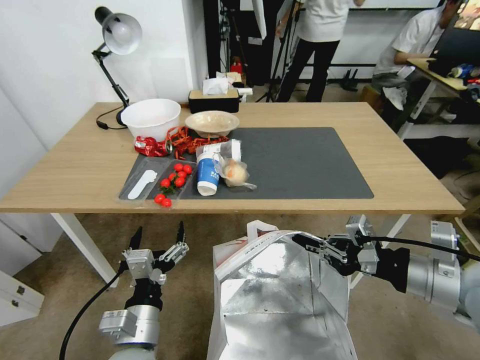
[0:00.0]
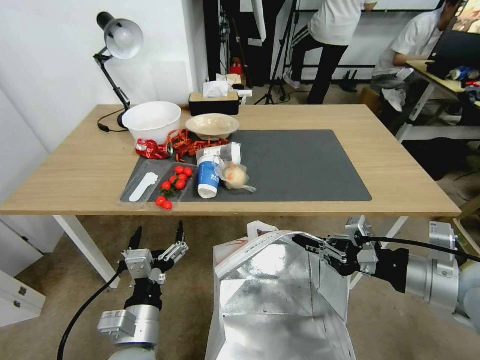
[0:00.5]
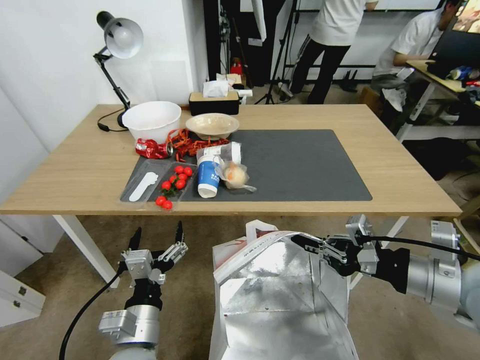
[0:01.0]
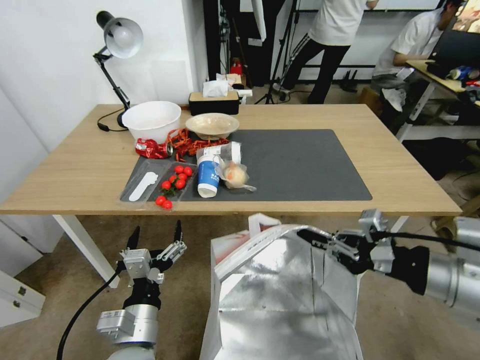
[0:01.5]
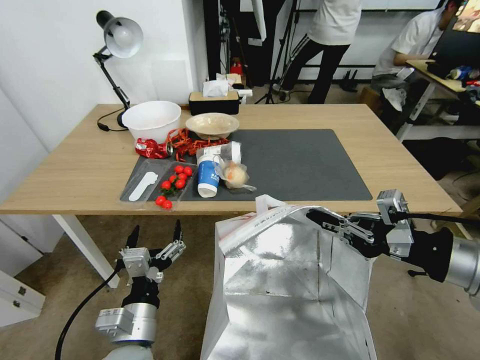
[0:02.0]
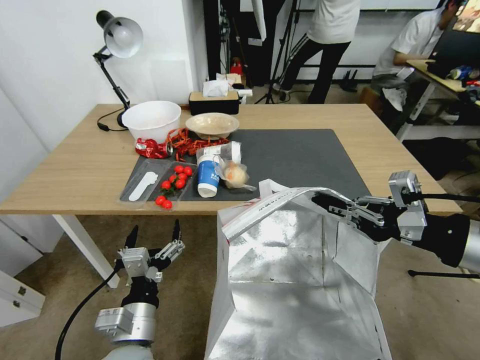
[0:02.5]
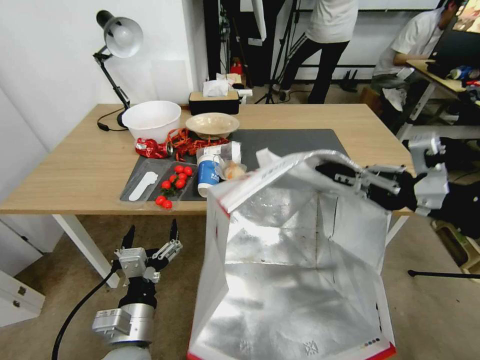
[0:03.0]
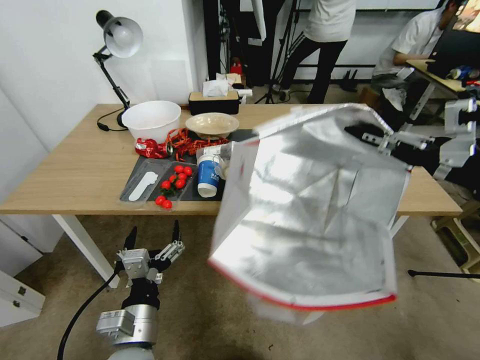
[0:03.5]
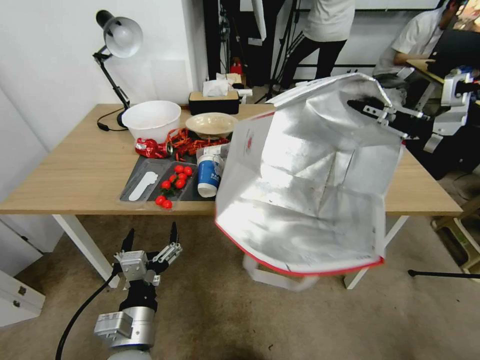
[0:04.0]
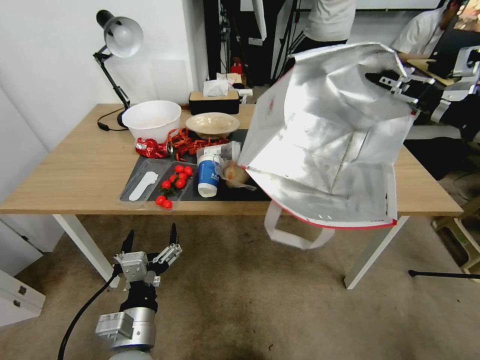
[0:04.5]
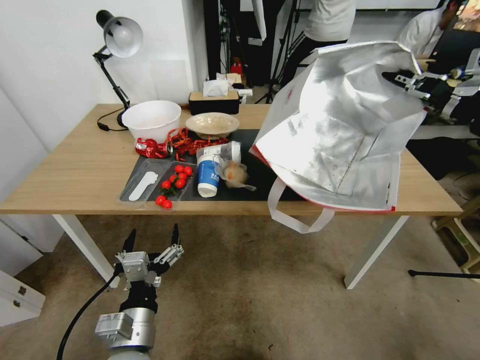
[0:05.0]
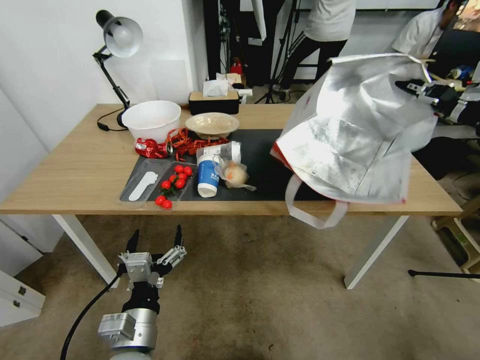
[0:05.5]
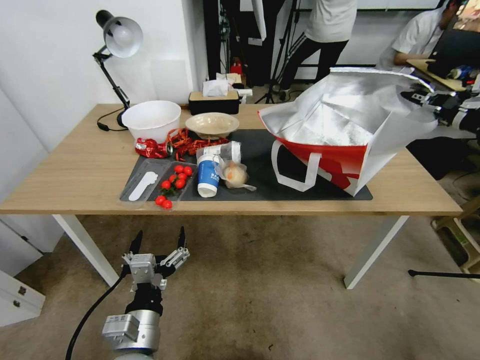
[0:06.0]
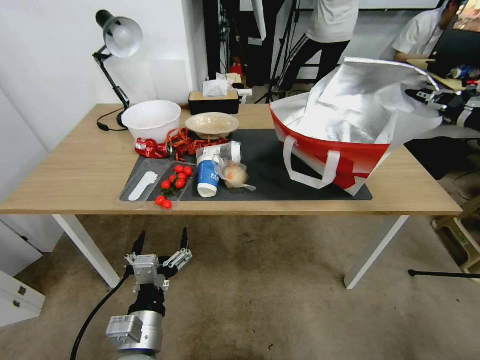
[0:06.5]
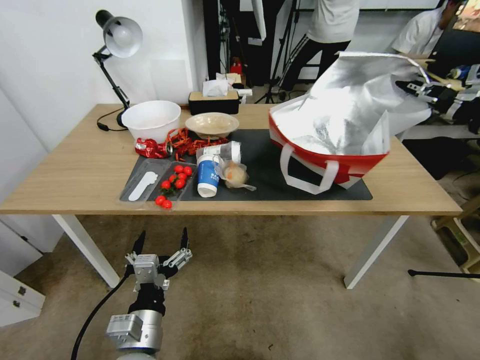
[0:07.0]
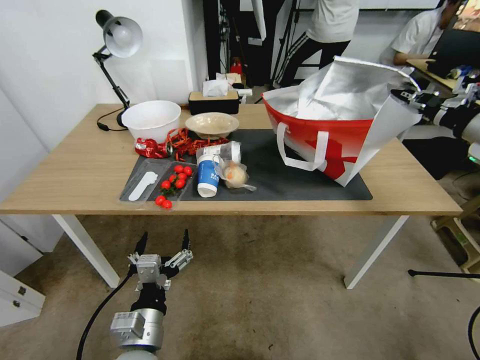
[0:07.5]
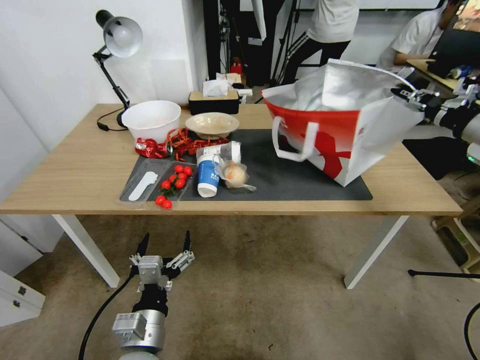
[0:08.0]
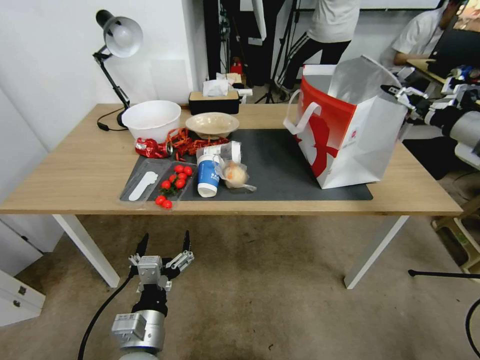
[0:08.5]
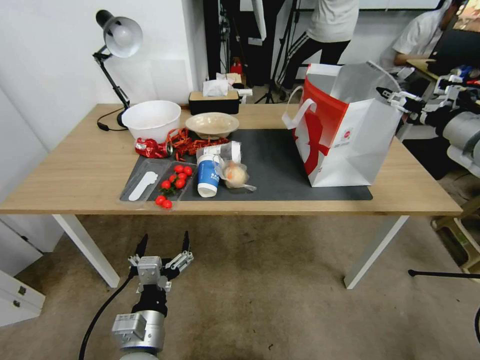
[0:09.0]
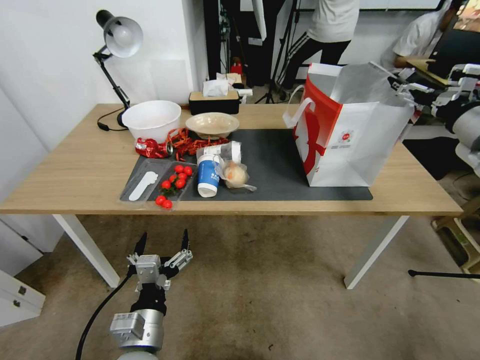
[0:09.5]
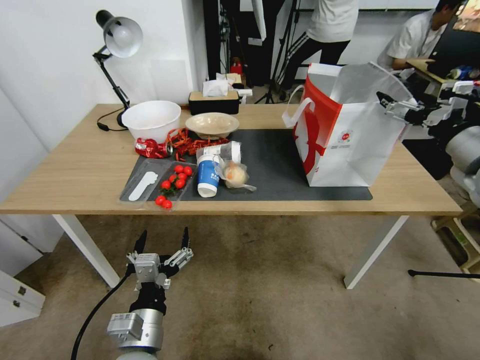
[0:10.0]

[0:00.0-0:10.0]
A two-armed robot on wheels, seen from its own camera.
Task of the whole recording: Pick up the food delivery bag from the floor and place it on the table.
0:00.0 to 0:02.0: The right gripper moves upward, some 5 cm.
0:02.0 to 0:04.0: The right gripper is displaced upward and forward by roughly 10 cm.
0:04.0 to 0:06.0: The right gripper is displaced to the right and forward by roughly 15 cm.
0:06.0 to 0:08.0: The right gripper travels forward by about 5 cm.
0:08.0 to 0:10.0: The right gripper shifts roughly 10 cm to the left and backward, and opens up.

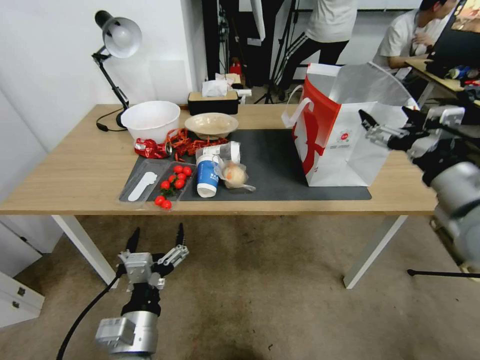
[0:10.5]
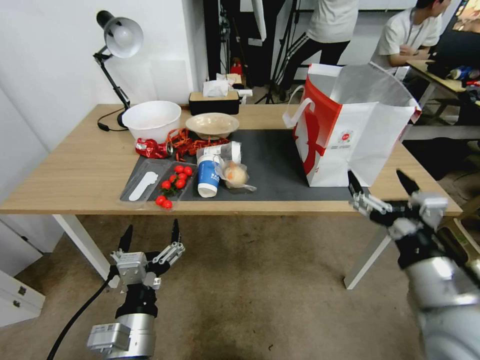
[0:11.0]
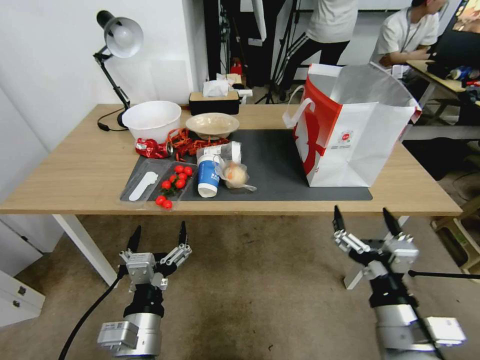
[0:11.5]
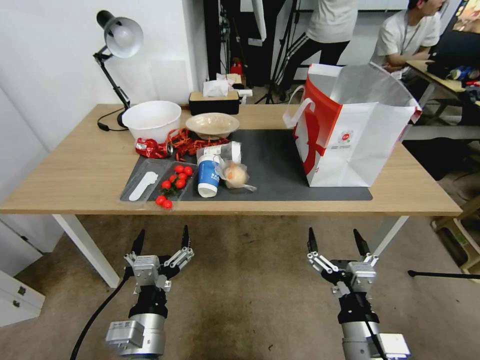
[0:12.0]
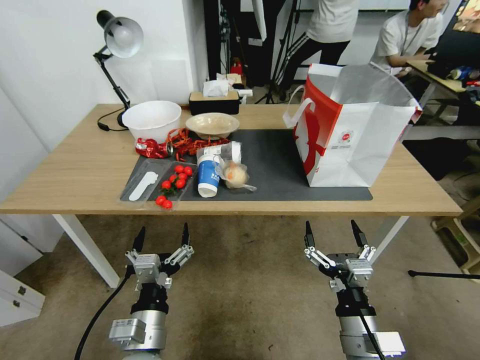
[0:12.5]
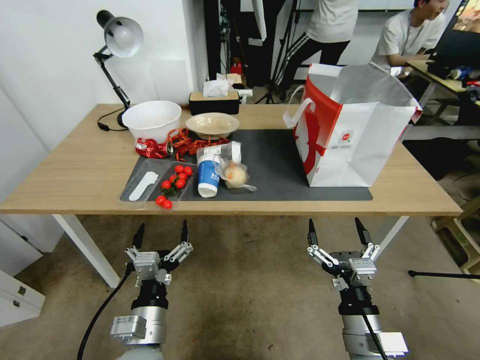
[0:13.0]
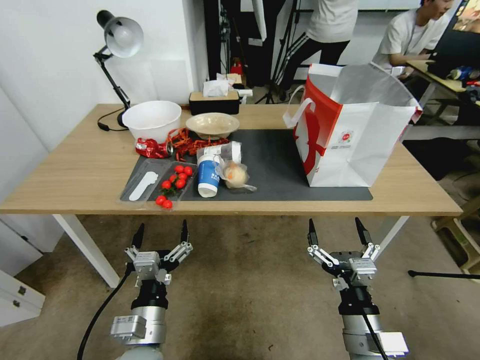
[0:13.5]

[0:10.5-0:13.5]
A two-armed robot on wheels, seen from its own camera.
Task of the whole recording: Pick up the food delivery bag from the floor and place it on the table.
0:10.5 to 0:12.0: The right gripper is displaced downward, backward and to the left by approximately 30 cm.
0:12.0 to 0:13.5: The grippers make only small movements.

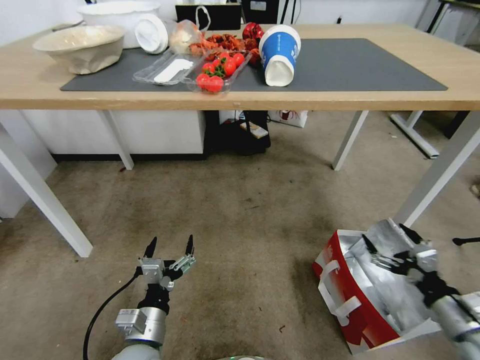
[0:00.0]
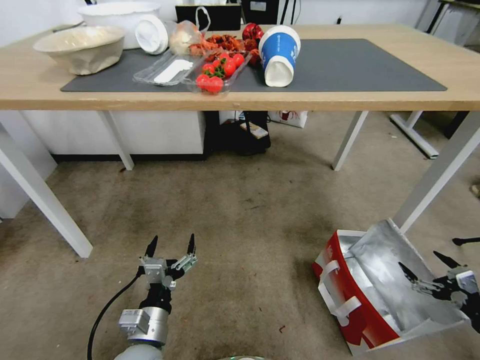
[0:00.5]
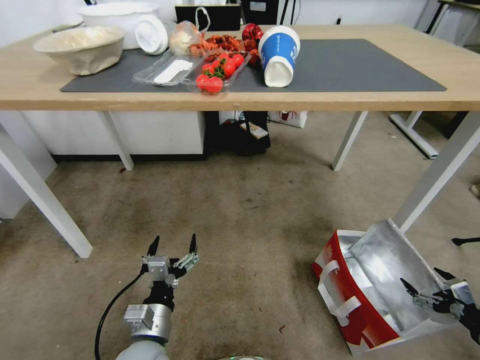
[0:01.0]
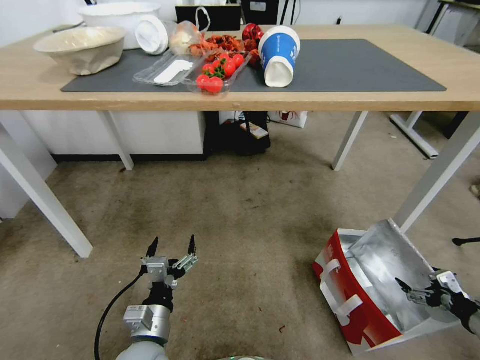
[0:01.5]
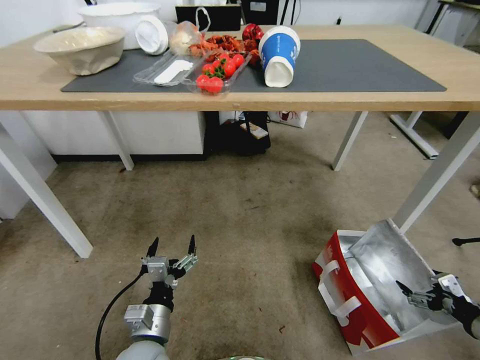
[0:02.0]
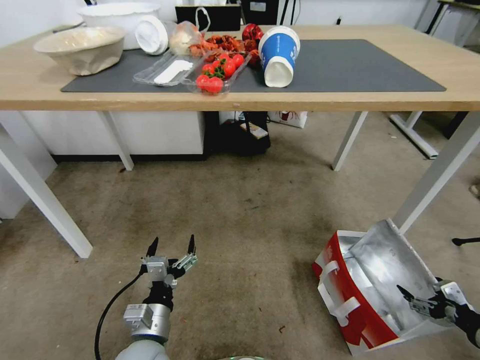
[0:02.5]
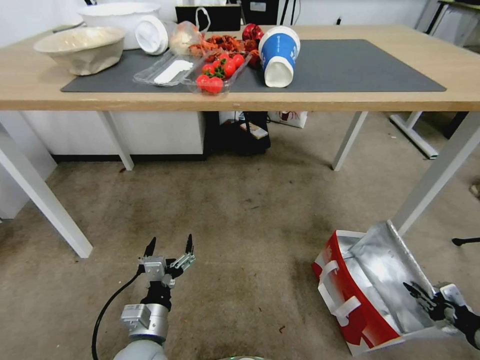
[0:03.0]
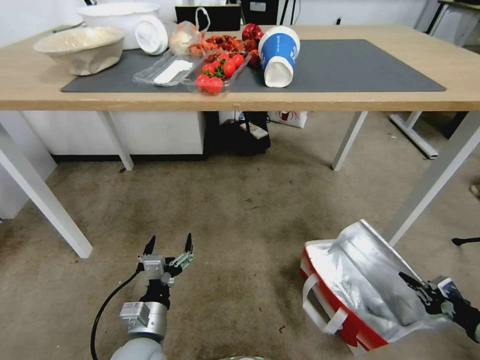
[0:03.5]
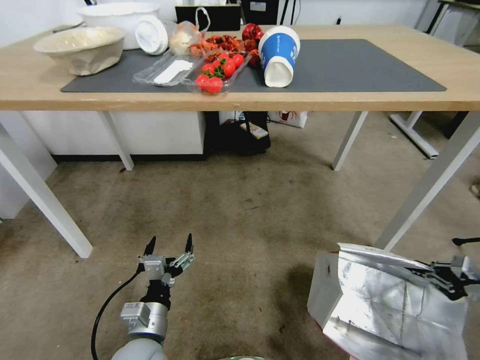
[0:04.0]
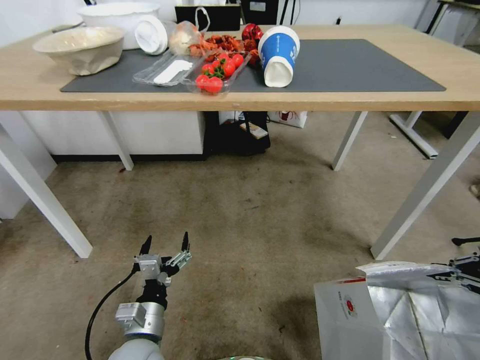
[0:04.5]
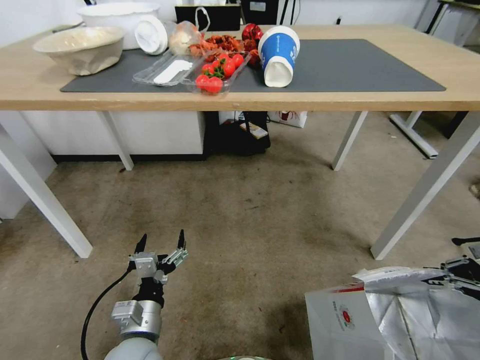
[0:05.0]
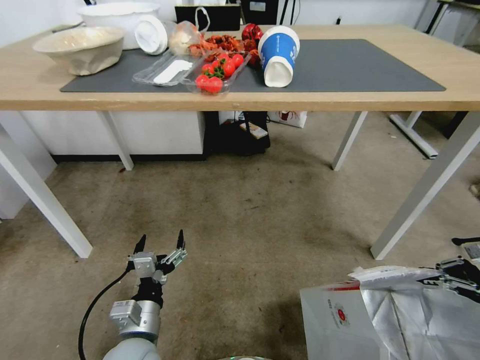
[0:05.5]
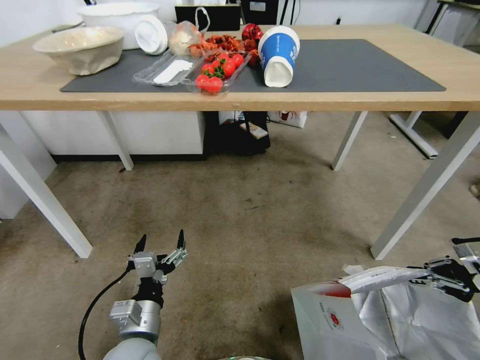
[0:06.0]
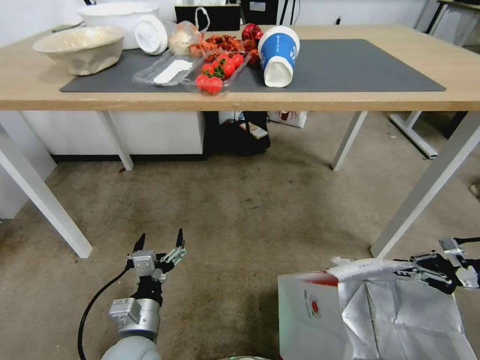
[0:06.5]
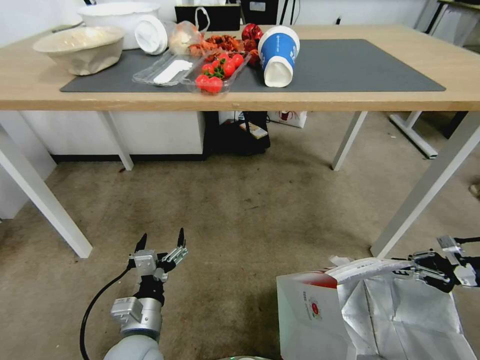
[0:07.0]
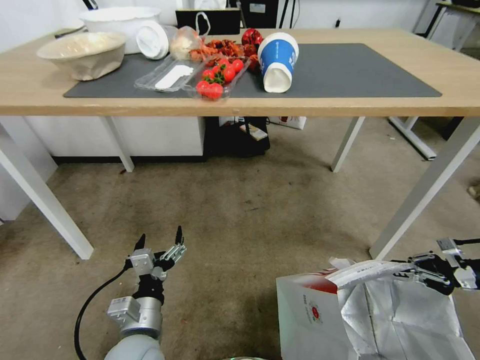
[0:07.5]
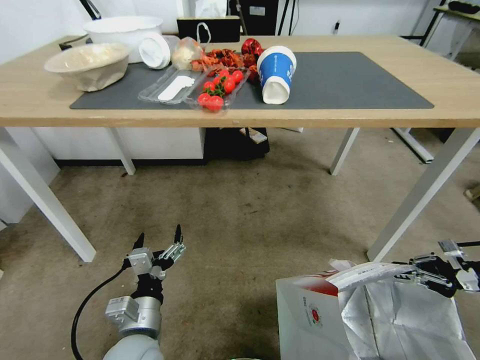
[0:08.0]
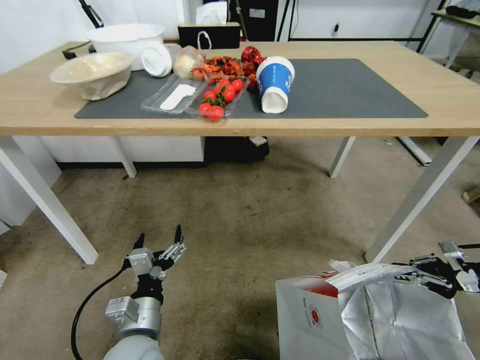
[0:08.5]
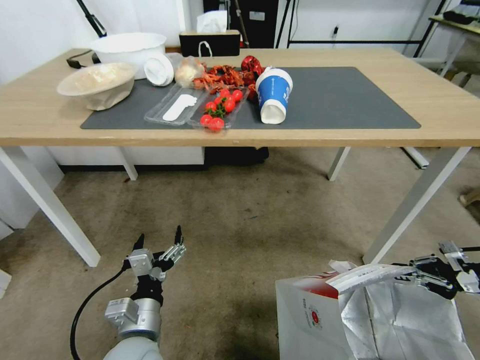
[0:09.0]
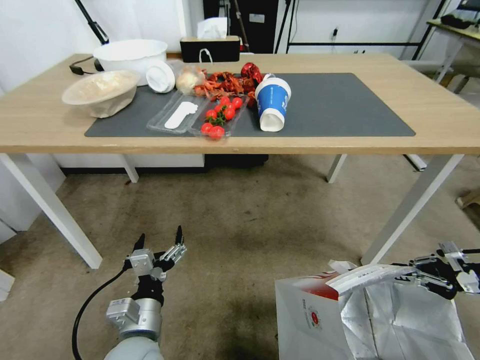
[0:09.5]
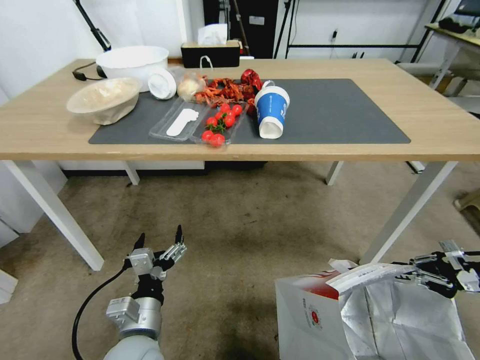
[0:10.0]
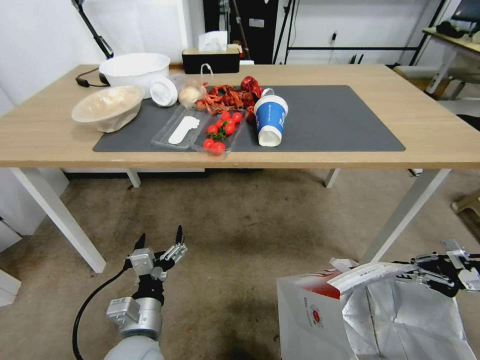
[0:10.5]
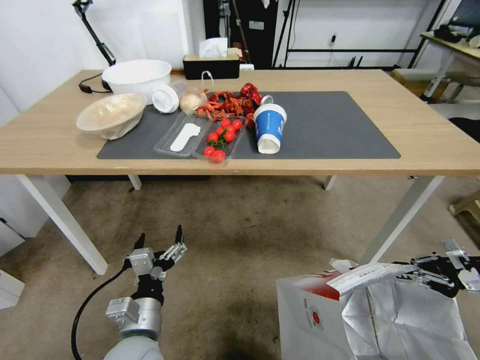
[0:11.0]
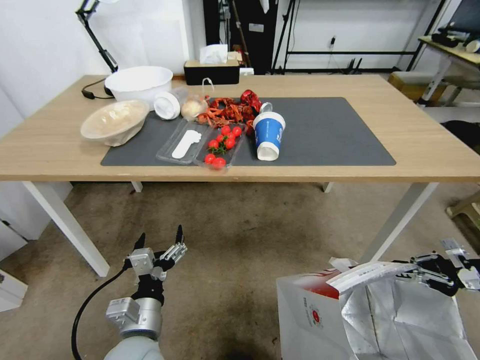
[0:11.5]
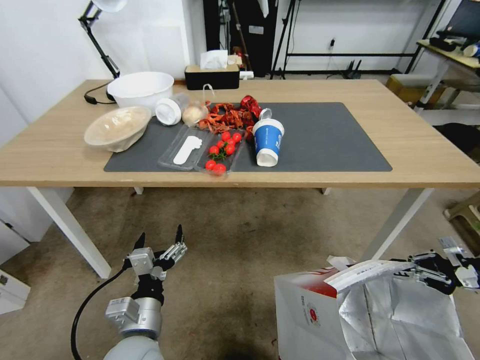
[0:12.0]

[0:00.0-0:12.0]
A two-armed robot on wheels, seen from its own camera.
Task of the whole recording: Pick up the food delivery bag from the floor and place it on the table.
0:00.0 to 0:02.0: The right gripper is displaced to the right by approximately 10 cm.
0:02.0 to 0:04.0: The right gripper heads upward and to the right, covering roughly 10 cm, and closes up.
0:04.0 to 0:06.0: The right gripper travels forward by roughly 5 cm.
